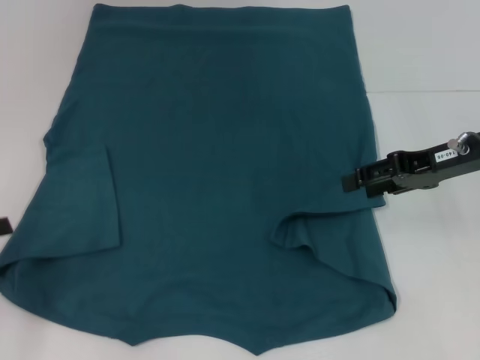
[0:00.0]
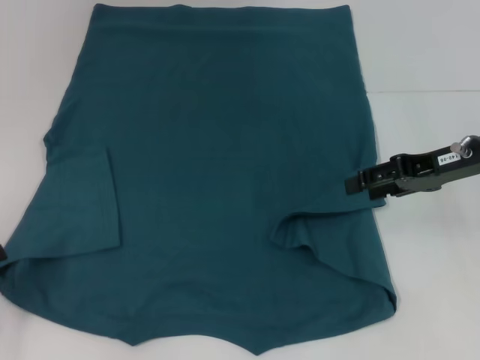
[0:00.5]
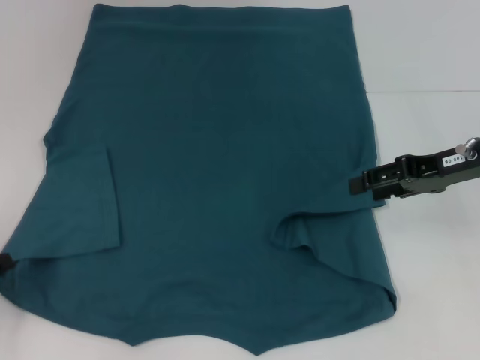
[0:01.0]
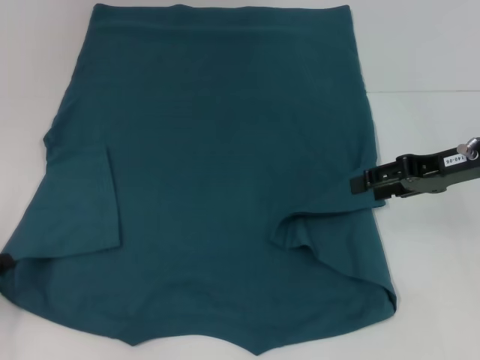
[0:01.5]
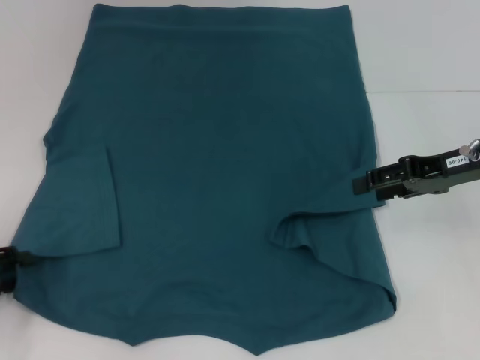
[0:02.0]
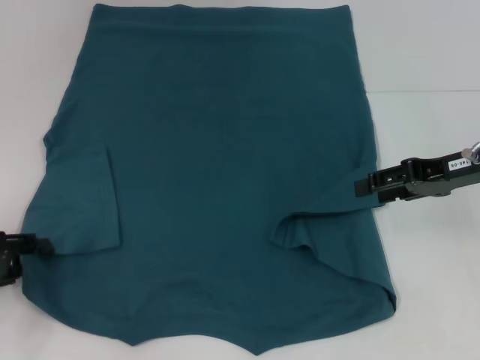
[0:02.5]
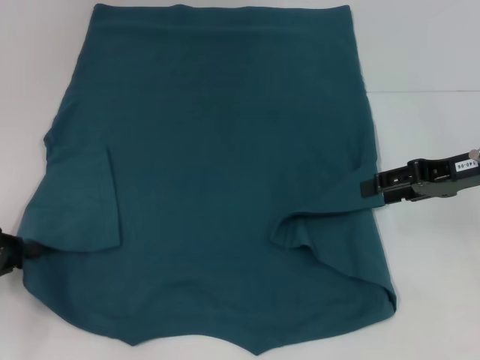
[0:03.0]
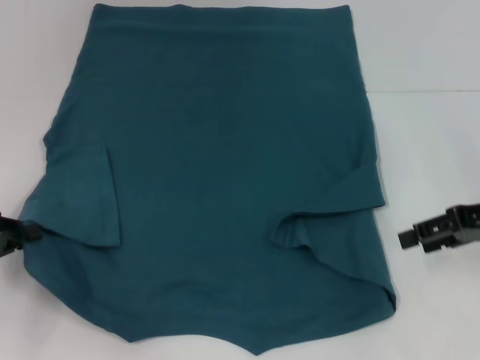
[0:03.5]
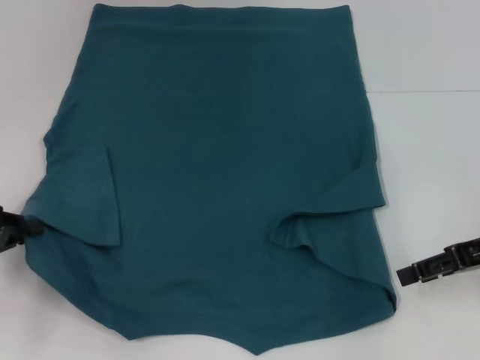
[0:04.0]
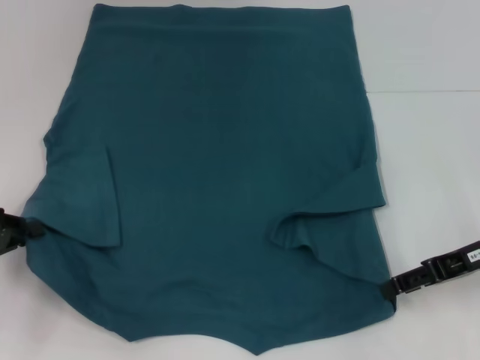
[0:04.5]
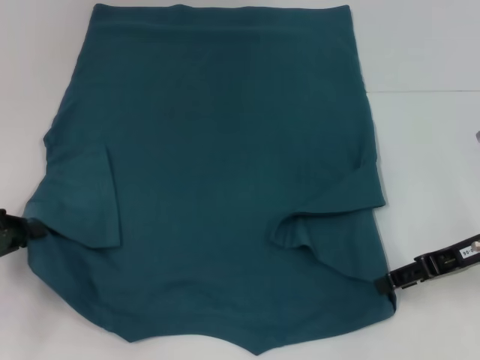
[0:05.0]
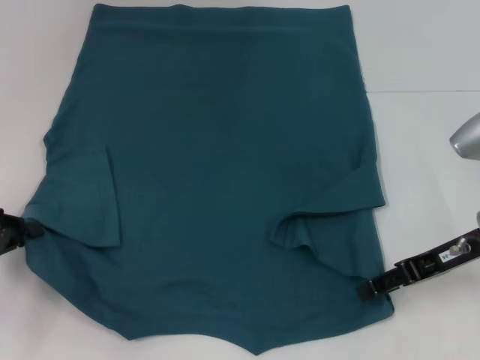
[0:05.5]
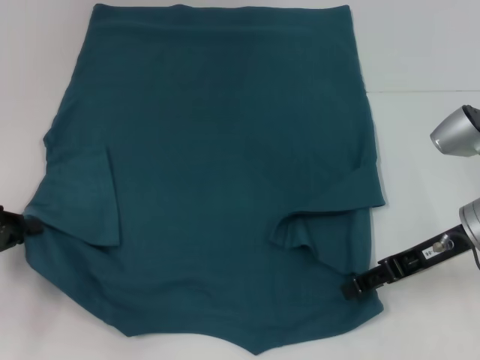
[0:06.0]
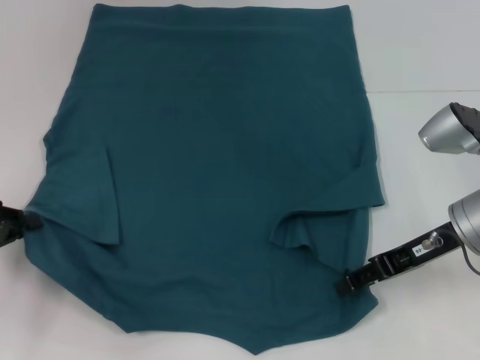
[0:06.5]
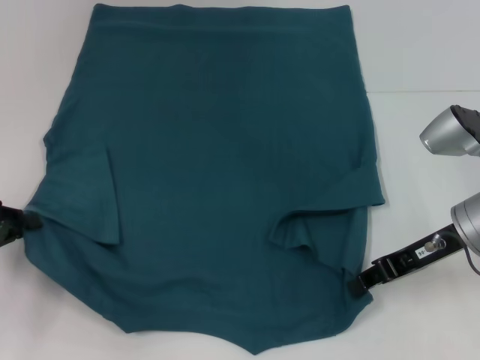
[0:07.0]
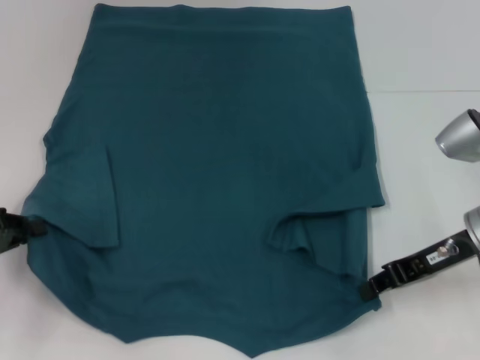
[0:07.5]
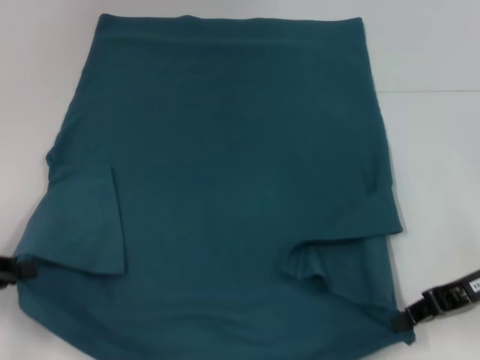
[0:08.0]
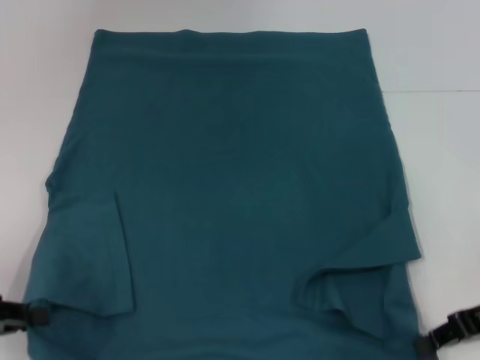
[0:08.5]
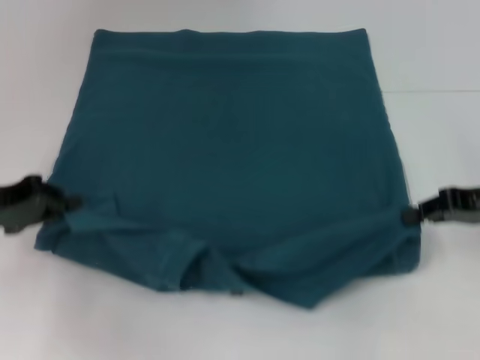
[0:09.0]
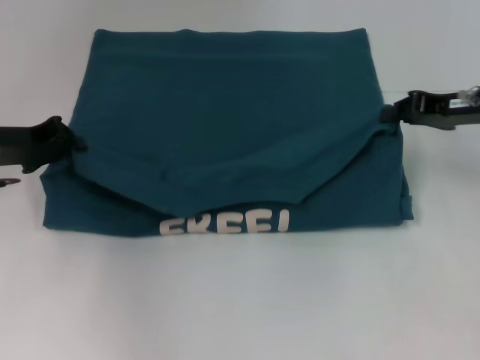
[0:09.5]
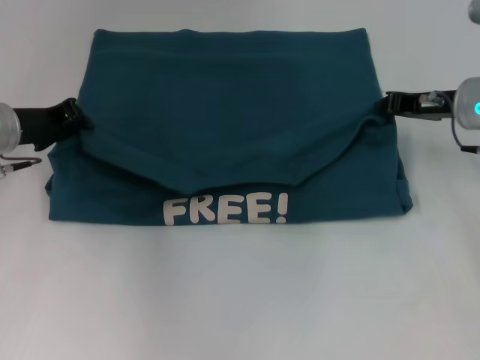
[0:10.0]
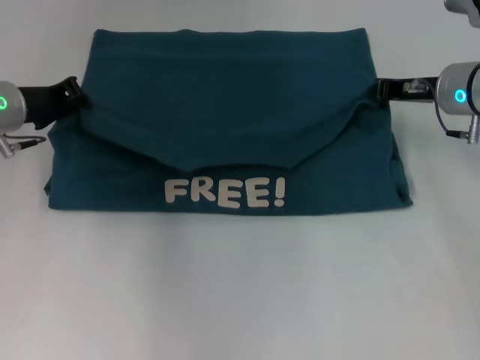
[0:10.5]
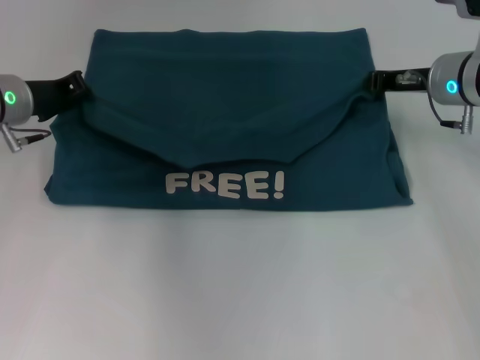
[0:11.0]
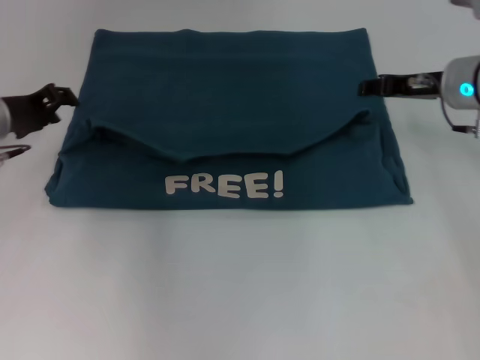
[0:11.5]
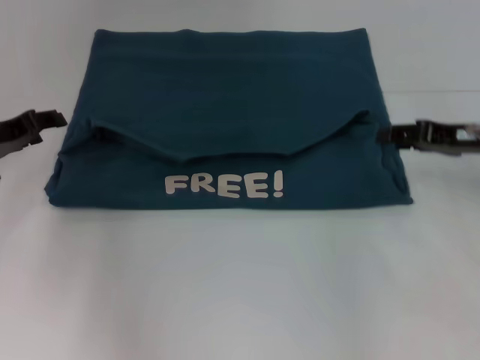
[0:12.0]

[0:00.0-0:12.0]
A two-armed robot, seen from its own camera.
Step, 0:00.0 to 0:02.5: Grab the bottom left corner with your left hand.
Step, 0:03.0 to 0:07.0: Grab the bottom right corner with your right hand.
Step, 0:07.5 to 0:11.5: Fold the clothes to the left.
Step, 0:07.5 to 0:11.5: Fold the clothes to the right.
0:00.0 to 0:02.0: The left gripper goes roughly 5 cm downward.
0:02.0 to 0:04.0: The right gripper shifts by some 5 cm. The left gripper closes up.
0:04.0 to 0:06.0: The right gripper shifts about 5 cm to the left.
0:06.0 to 0:08.0: The right gripper moves some 5 cm, and closes its fingers.
0:08.0 to 0:10.0: The left gripper goes some 20 cm forward and to the right, while the right gripper heads forward, covering approximately 15 cm.
0:10.0 to 0:12.0: The left gripper opens. Meanwhile the right gripper ends up about 5 cm from where it was, and opens up.

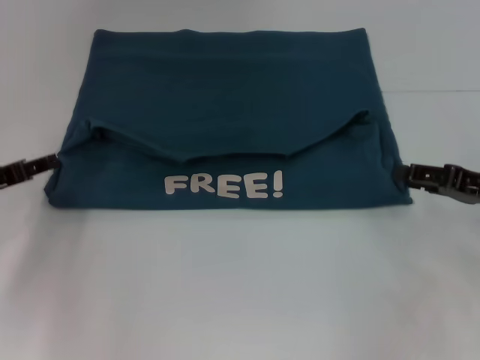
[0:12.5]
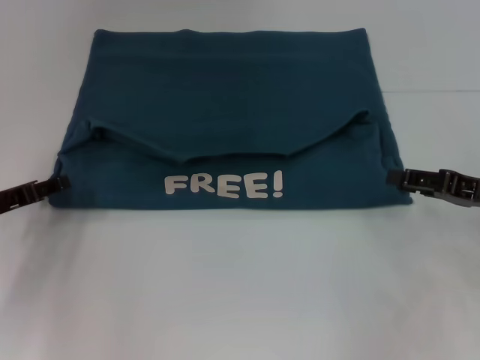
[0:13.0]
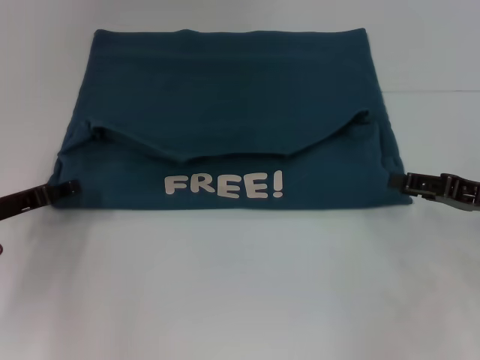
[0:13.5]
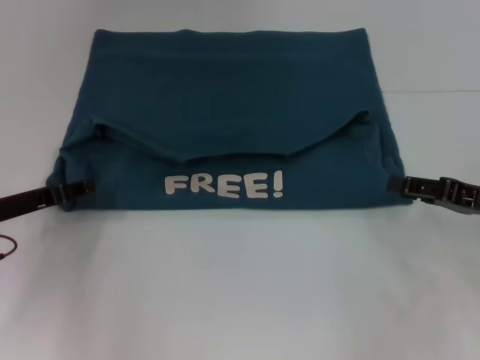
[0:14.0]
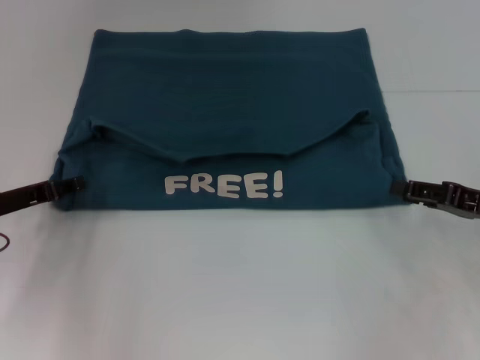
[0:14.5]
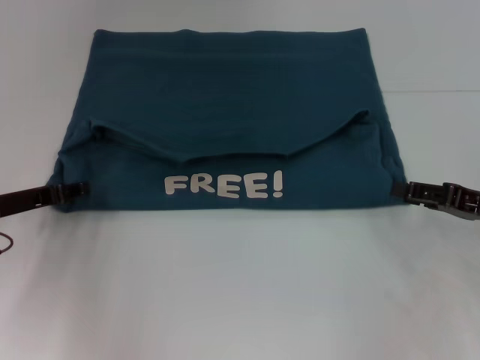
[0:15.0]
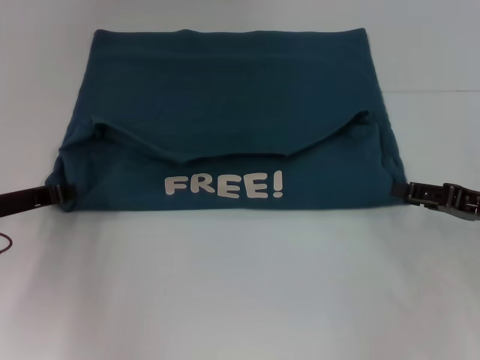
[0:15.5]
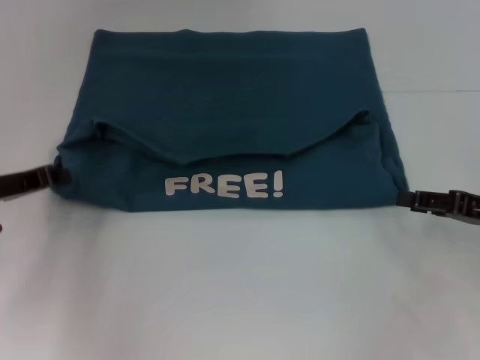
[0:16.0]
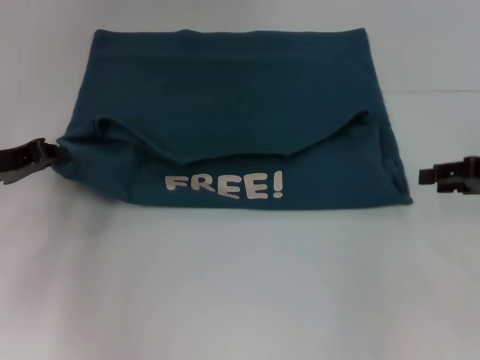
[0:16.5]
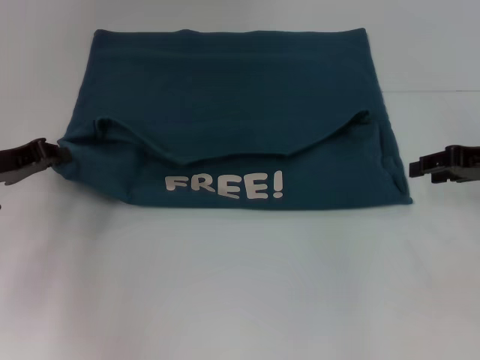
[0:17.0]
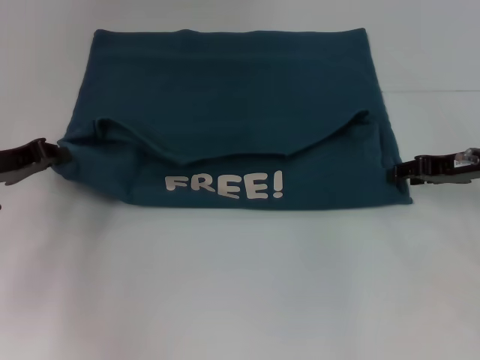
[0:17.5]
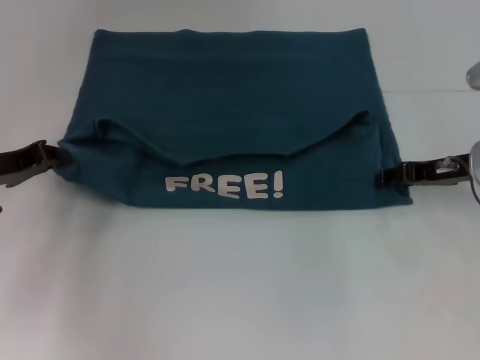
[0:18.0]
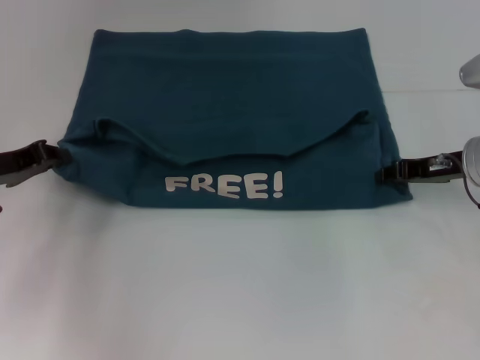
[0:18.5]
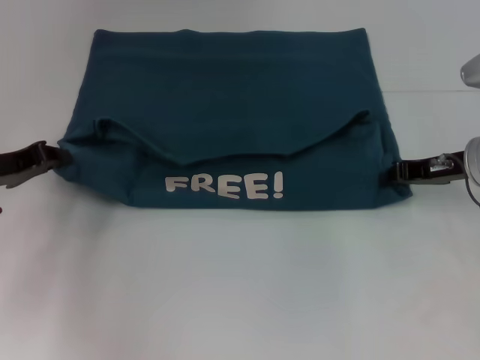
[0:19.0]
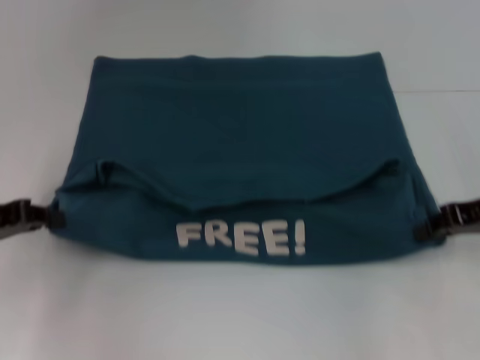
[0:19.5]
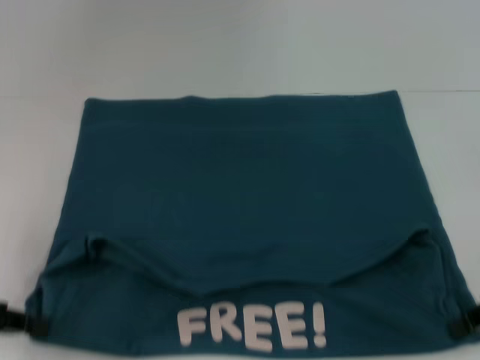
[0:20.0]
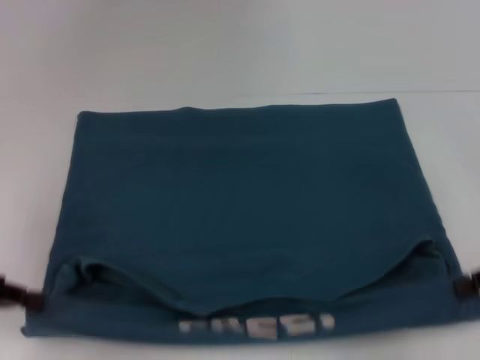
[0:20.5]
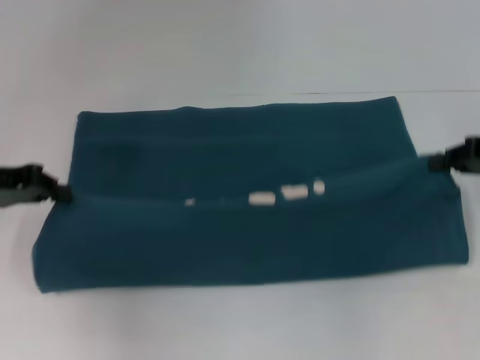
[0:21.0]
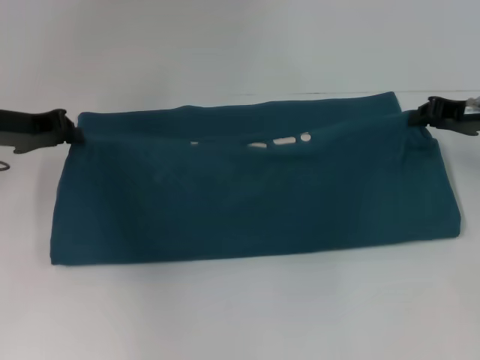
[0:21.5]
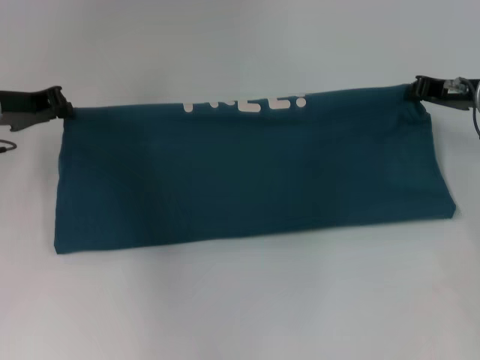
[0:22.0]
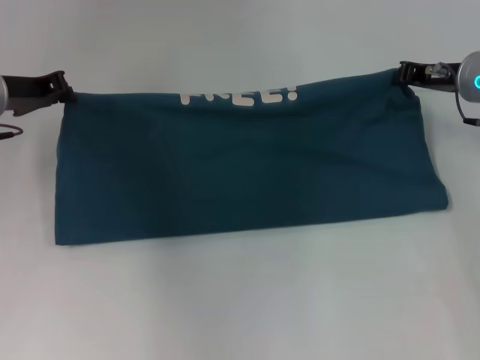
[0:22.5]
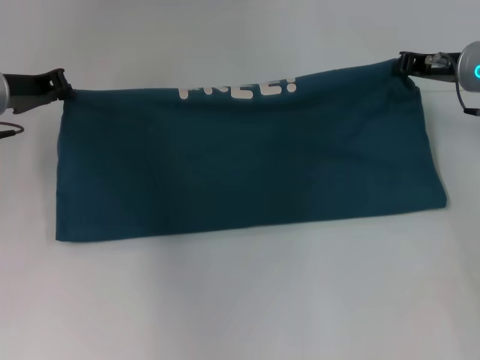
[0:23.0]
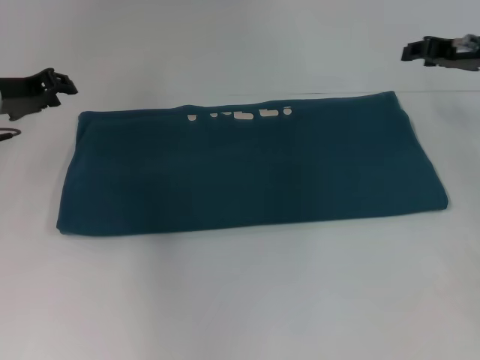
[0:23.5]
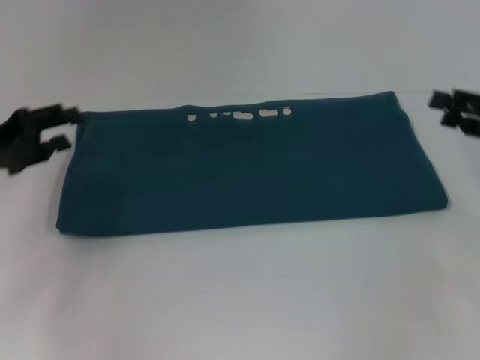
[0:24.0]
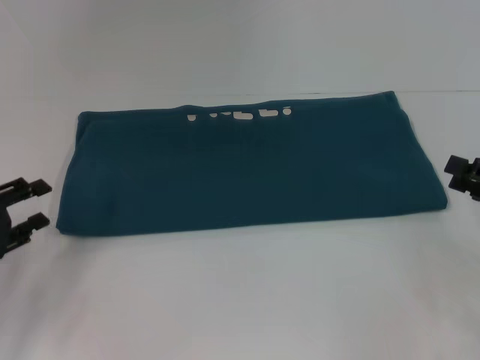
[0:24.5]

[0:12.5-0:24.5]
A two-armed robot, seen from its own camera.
Step, 0:12.5 to 0:19.5: Pull the clothes with your left hand.
Step, 0:12.5 to 0:19.5: Pull the clothes with your right hand.
Step, 0:20.0 to 0:23.5: Fold the clothes to the right.
0:12.5 to 0:14.5: The grippers stay close to where they were, moving slightly.
0:14.5 to 0:16.5: The right gripper shifts by roughly 5 cm; the left gripper closes its fingers.
0:16.5 to 0:18.5: The right gripper goes approximately 10 cm to the left.
0:18.5 to 0:20.5: The left gripper shifts some 10 cm backward. The right gripper heads backward and to the right, covering approximately 15 cm, and closes up.
0:20.5 to 0:22.5: The right gripper goes about 20 cm forward and to the left. Meanwhile the left gripper shifts about 15 cm forward.
0:22.5 to 0:24.5: The left gripper goes approximately 20 cm backward and downward, and opens its fingers; the right gripper moves backward and to the right, about 20 cm, and opens.

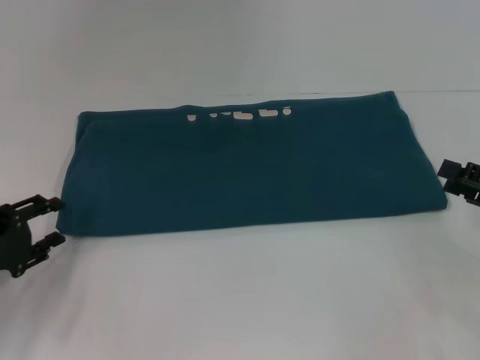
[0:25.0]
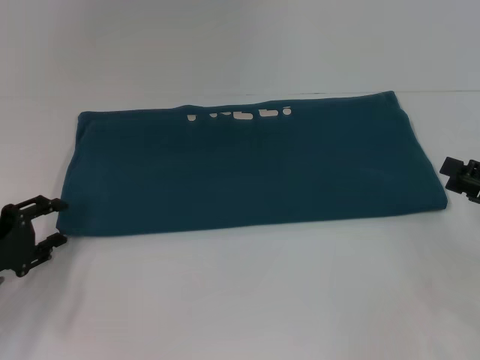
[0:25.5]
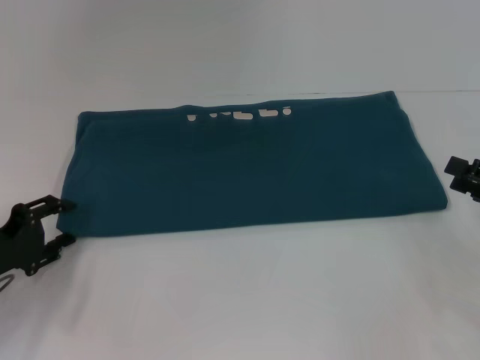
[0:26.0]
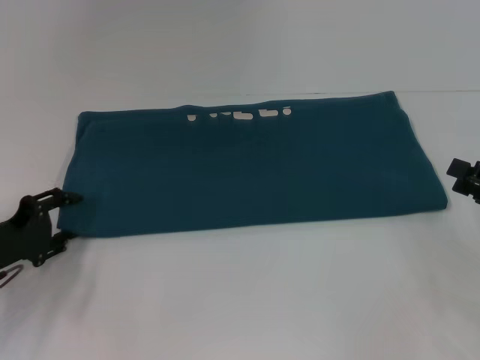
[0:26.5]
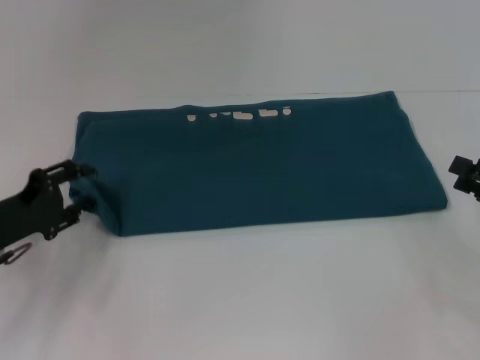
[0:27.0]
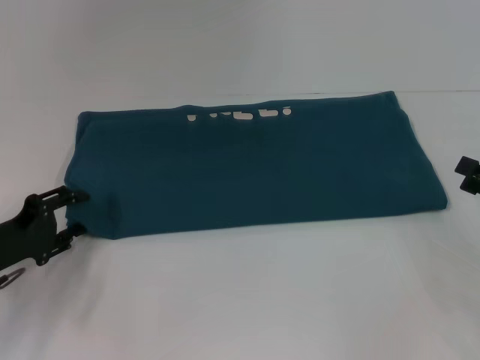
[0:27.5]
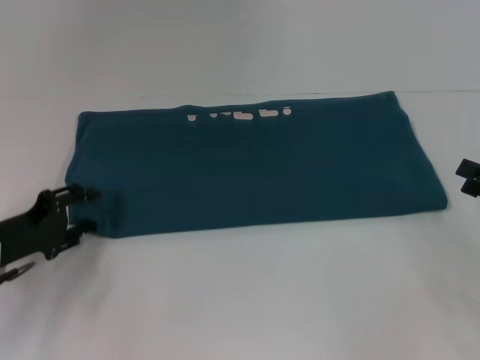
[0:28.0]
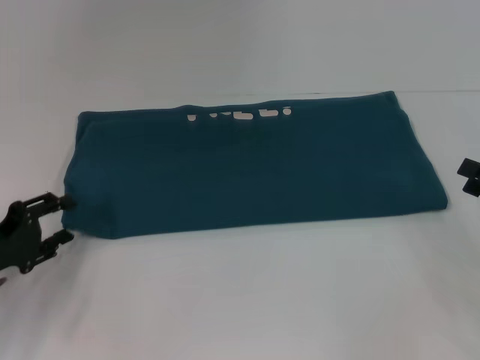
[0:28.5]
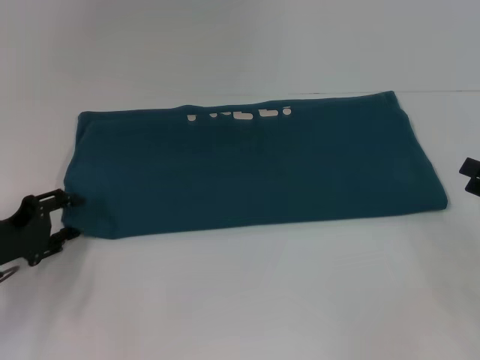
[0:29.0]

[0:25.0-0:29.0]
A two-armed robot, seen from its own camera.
0:25.0 to 0:29.0: The grippers stay close to where they were, moving slightly.